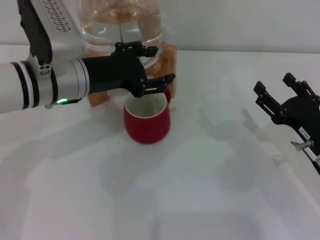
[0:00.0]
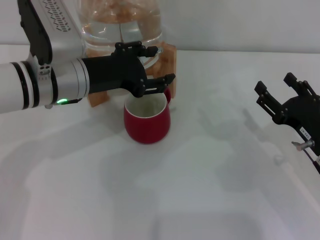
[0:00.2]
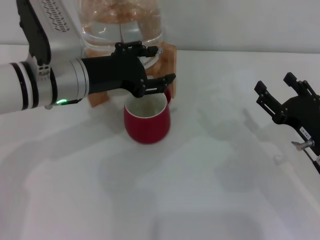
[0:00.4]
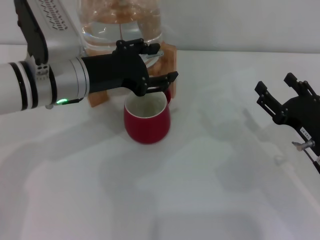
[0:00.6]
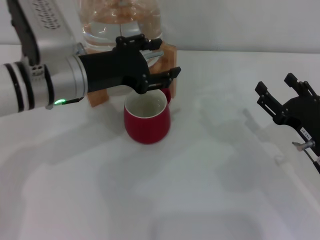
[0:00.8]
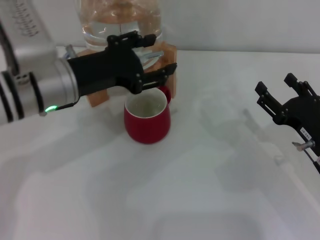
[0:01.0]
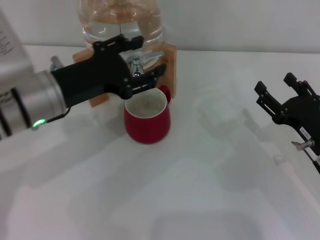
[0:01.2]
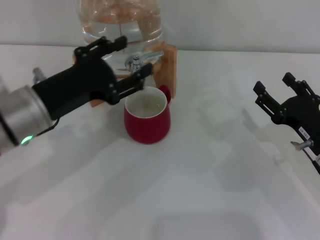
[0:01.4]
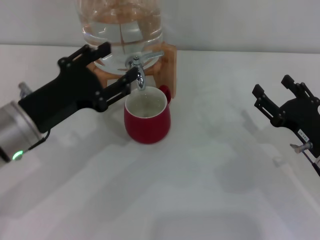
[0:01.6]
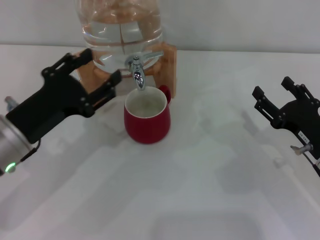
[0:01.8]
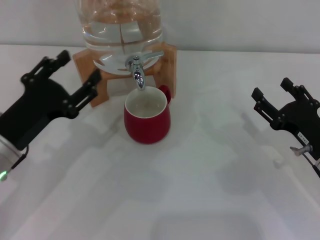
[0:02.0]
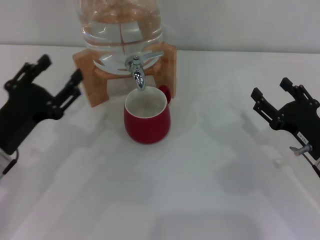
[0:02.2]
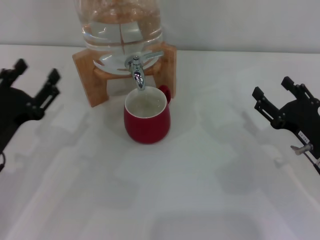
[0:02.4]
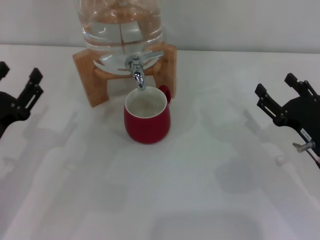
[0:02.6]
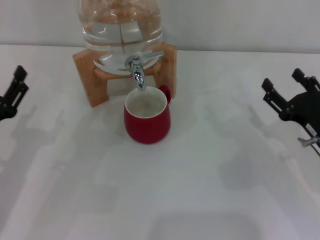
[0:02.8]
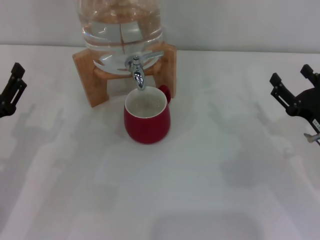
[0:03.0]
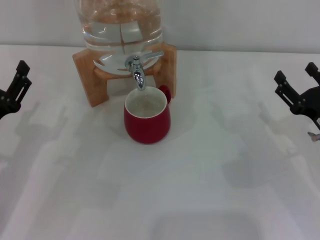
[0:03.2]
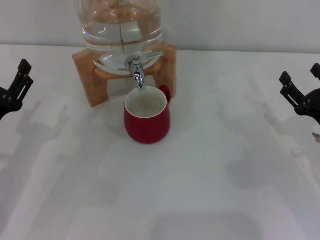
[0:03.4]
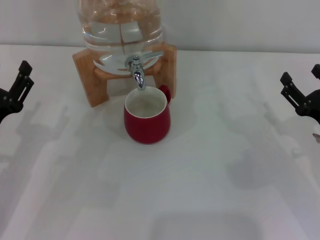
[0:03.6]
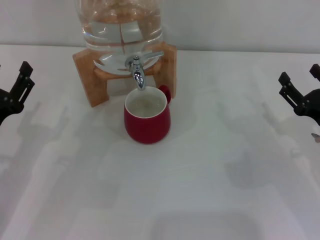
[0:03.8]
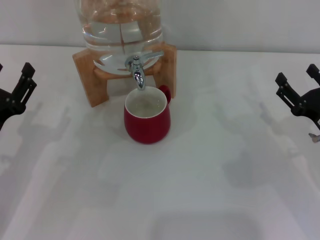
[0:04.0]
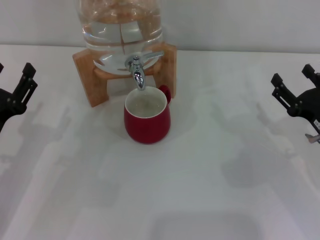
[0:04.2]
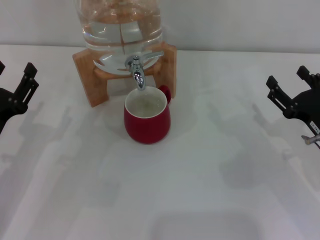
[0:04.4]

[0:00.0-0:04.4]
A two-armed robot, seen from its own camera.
Task of the whole recording: the right gripper pick up the red cup and place it horizontally under the faucet, the left gripper turn on the faucet to fill the cup, and then turn off the faucet.
0:00.0 to 0:01.4: The left gripper goes about 5 cm backward.
0:01.4 to 0:03.0: The left gripper shifts some 15 cm to the left, downward and backward.
0:03.0 to 0:04.4: Both grippers stay about where they are.

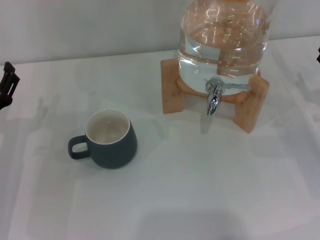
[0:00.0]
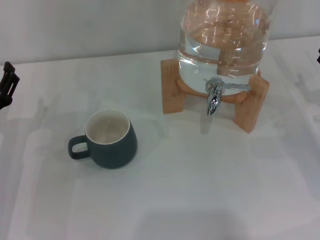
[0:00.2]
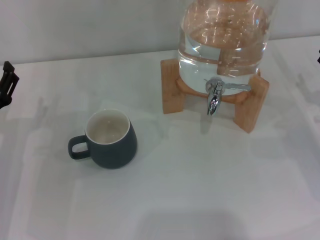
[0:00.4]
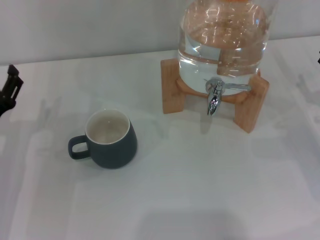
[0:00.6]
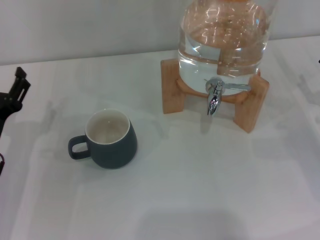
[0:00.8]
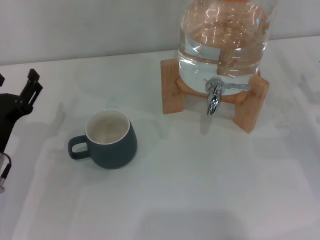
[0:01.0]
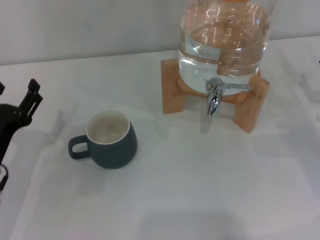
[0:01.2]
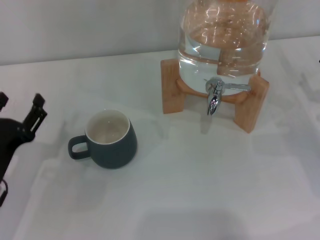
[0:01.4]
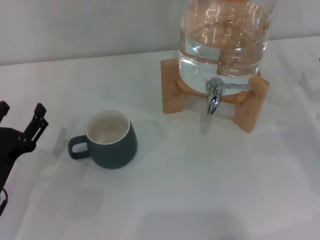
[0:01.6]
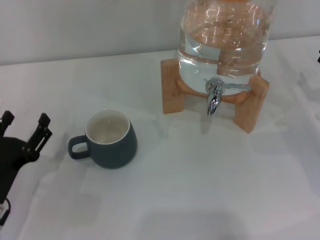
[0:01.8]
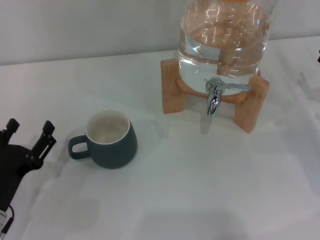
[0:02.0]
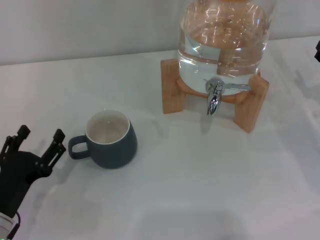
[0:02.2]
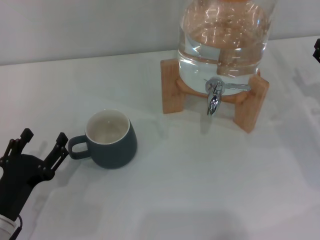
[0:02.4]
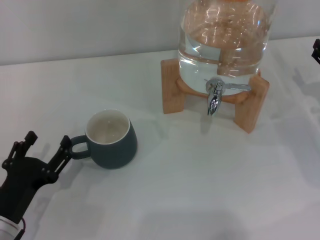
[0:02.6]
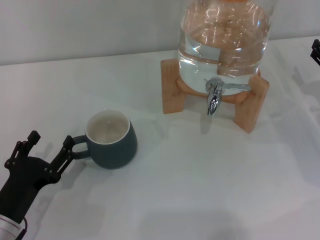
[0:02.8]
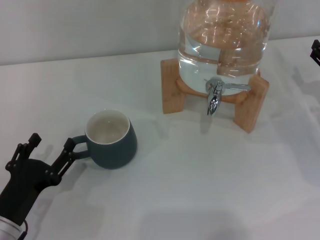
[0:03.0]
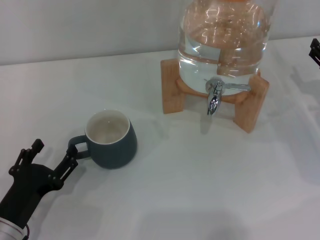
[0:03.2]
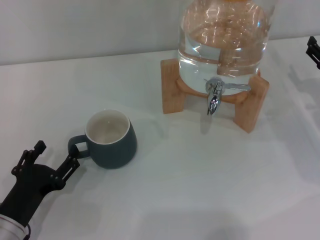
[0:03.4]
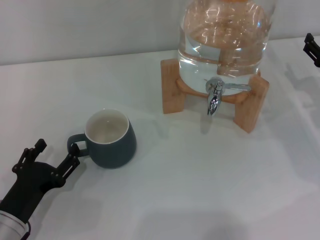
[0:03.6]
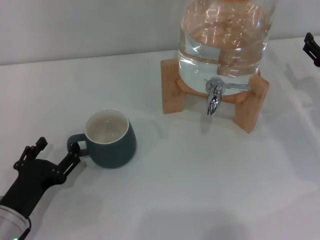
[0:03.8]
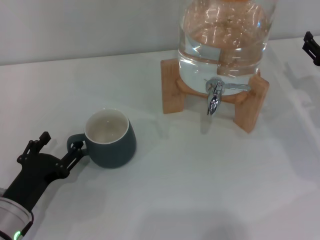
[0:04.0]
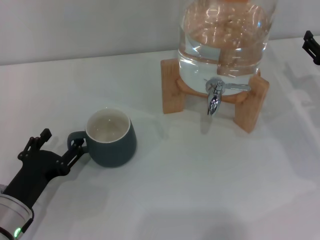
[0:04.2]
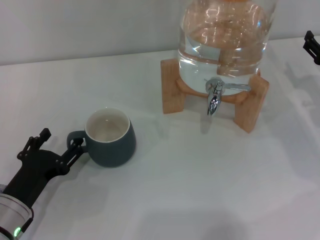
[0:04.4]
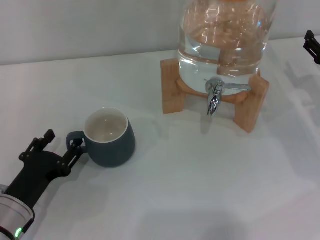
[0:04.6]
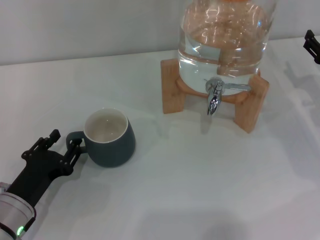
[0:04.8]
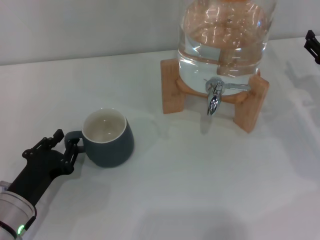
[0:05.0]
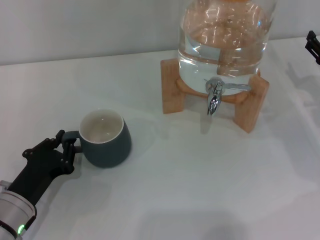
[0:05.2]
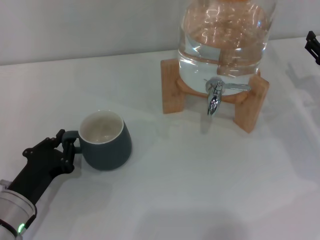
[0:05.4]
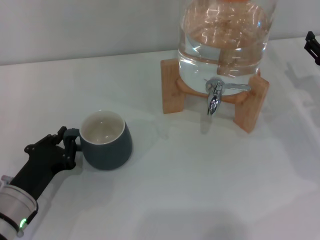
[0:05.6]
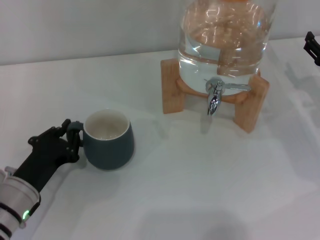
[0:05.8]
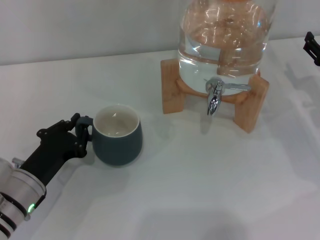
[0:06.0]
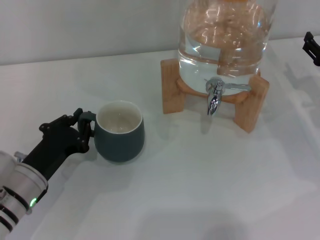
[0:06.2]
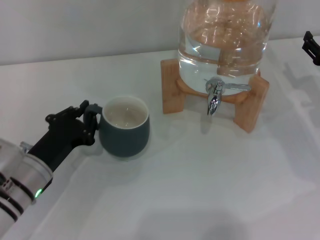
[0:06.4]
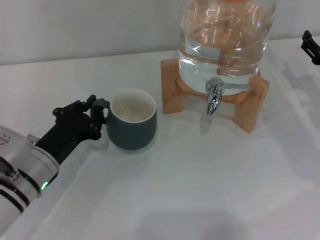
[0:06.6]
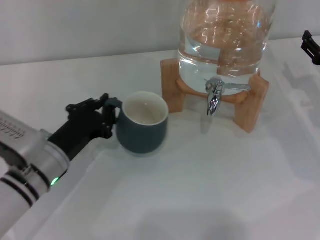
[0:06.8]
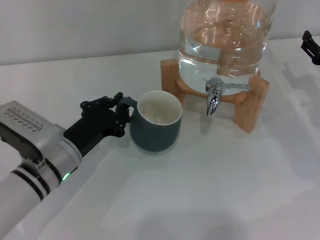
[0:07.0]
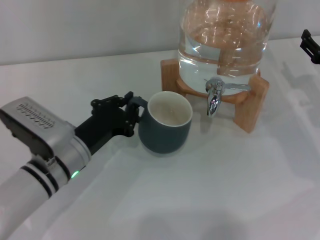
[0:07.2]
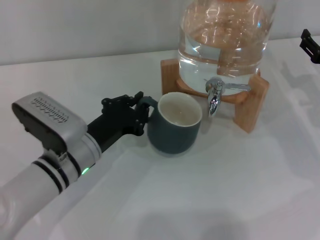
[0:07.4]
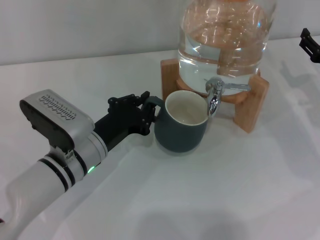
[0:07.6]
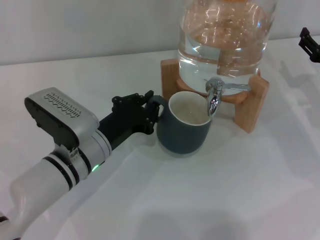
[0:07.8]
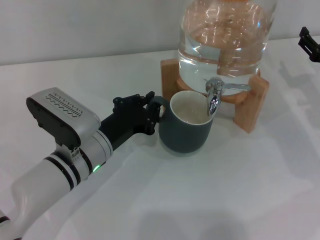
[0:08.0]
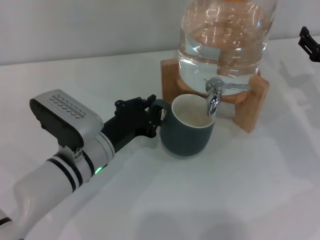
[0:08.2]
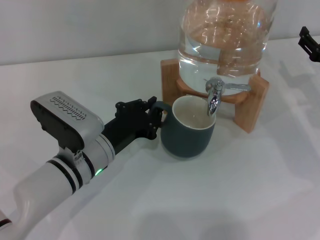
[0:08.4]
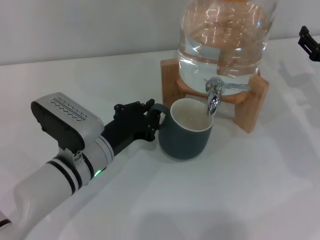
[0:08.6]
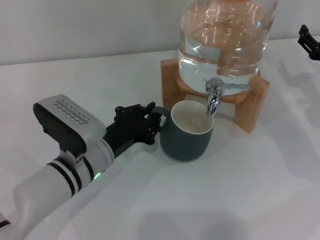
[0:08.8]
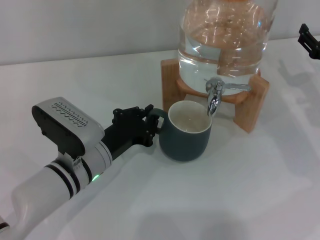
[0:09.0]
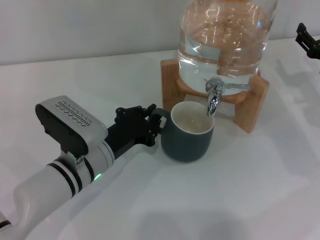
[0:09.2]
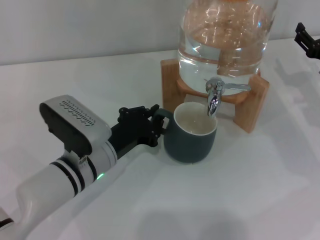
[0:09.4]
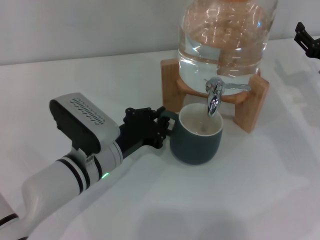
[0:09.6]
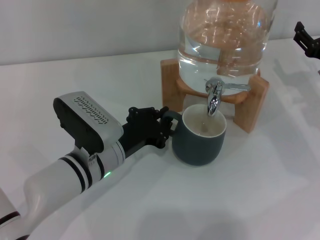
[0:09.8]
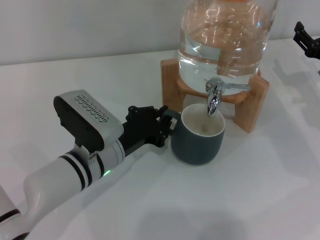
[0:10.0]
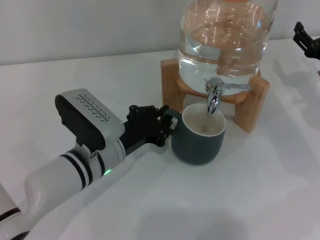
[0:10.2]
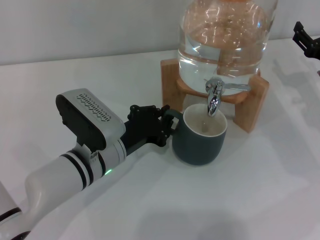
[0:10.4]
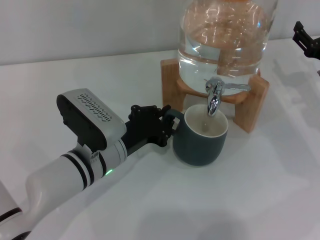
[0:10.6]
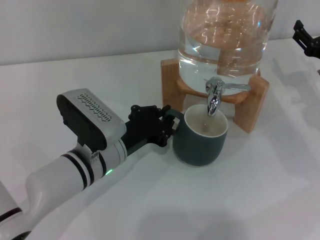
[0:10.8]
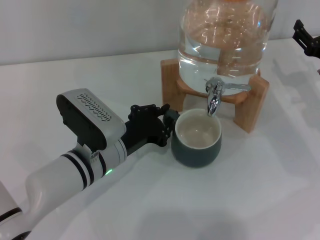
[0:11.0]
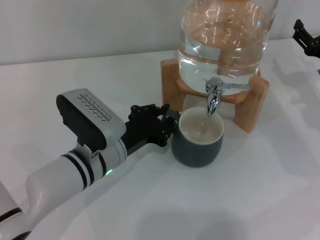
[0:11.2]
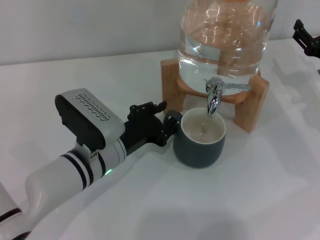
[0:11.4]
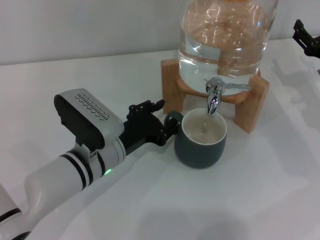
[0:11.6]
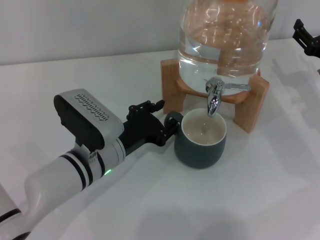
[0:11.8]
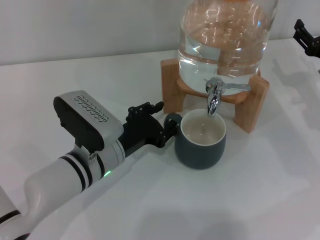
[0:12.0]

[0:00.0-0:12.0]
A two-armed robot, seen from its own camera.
Task of the whole recording: the left gripper pick up the black cup and place it horizontally under the faucet, the right gripper turn on the faucet to fill the cup, and then turn off the faucet.
0:00.0 to 0:01.6: The left gripper travels backward by roughly 5 cm.
0:01.6 to 0:04.4: The grippers stay close to where they were, moving slightly.
0:04.4 to 0:06.0: The left gripper closes.
0:06.0 to 0:07.6: The left gripper goes approximately 10 cm to the right.
0:07.6 to 0:09.0: Both grippers stay put.
0:09.0 to 0:10.4: There are only small adjustments of the grippers.
0:10.4 to 0:12.0: The left gripper opens up.

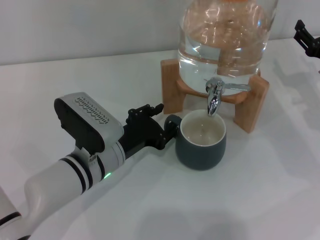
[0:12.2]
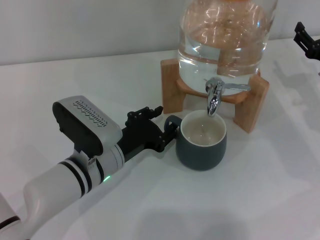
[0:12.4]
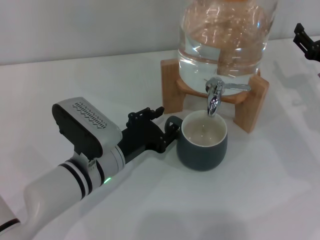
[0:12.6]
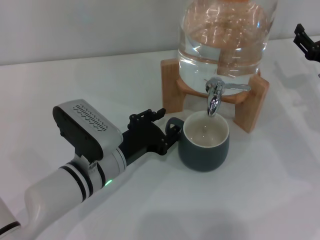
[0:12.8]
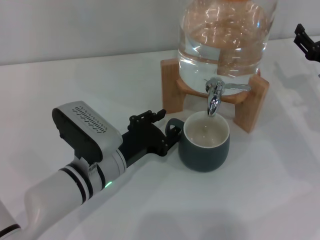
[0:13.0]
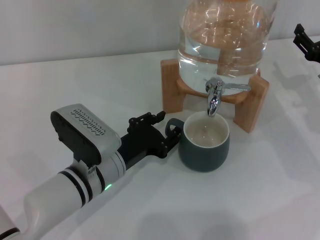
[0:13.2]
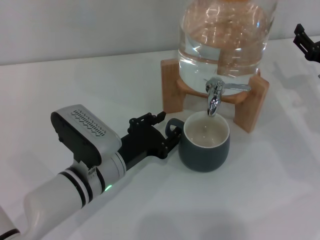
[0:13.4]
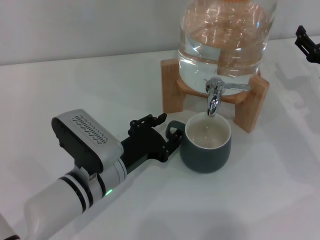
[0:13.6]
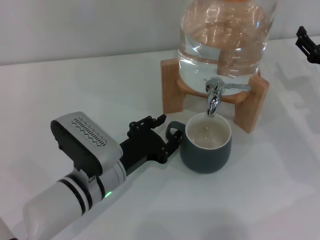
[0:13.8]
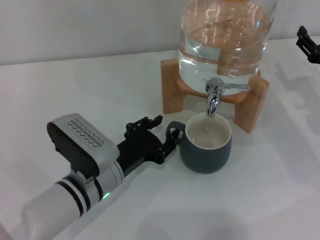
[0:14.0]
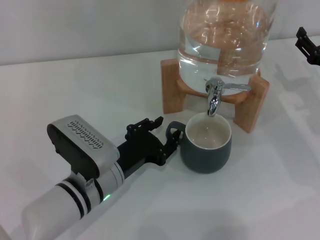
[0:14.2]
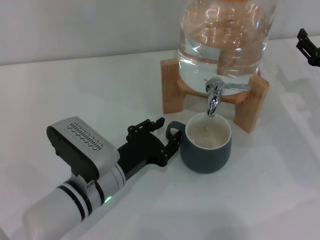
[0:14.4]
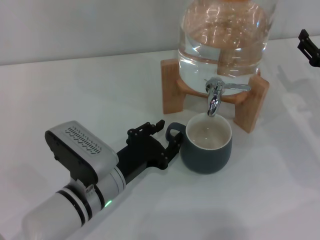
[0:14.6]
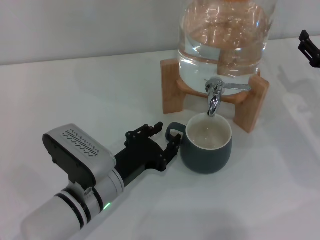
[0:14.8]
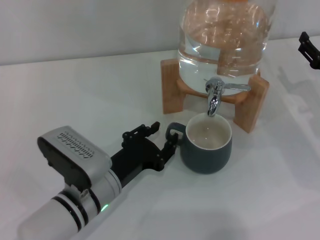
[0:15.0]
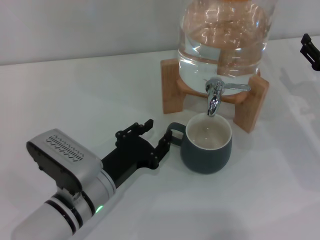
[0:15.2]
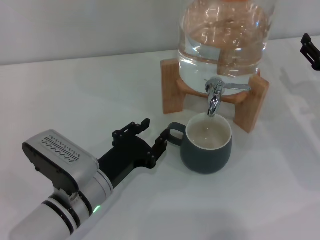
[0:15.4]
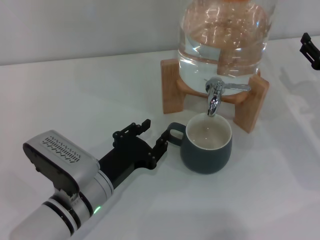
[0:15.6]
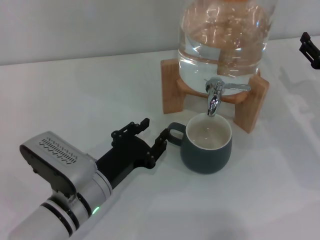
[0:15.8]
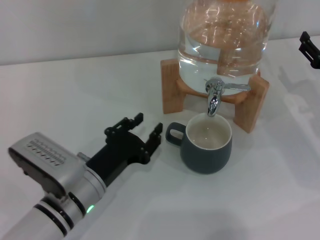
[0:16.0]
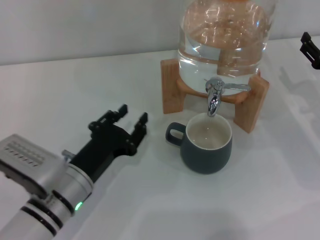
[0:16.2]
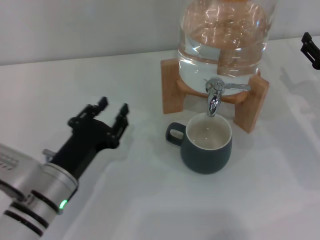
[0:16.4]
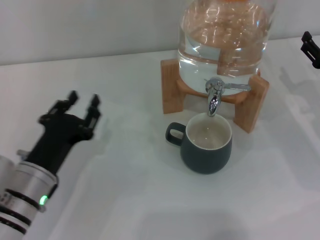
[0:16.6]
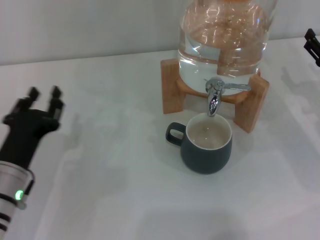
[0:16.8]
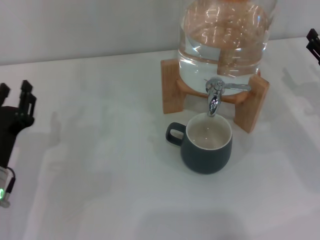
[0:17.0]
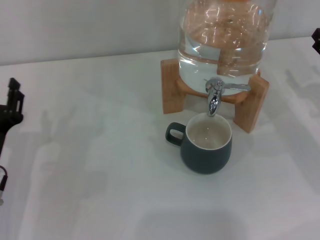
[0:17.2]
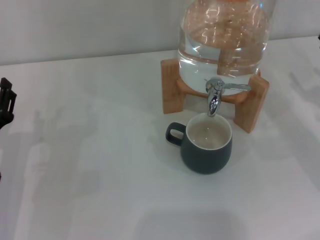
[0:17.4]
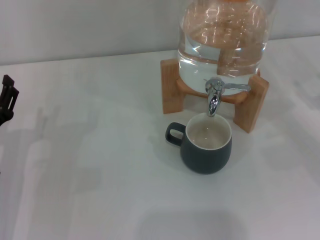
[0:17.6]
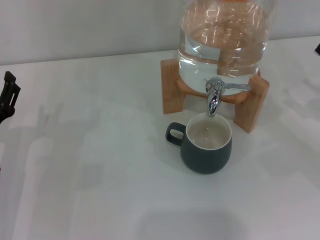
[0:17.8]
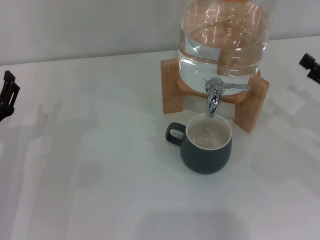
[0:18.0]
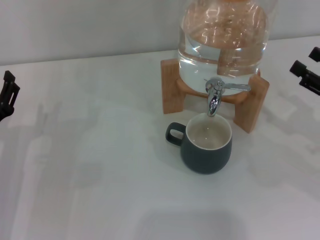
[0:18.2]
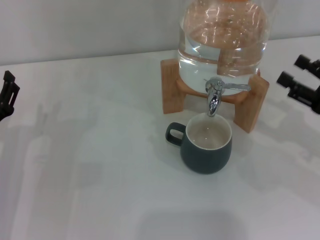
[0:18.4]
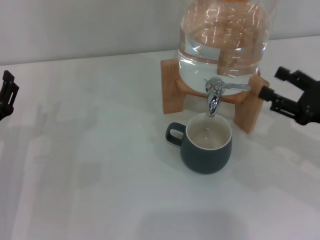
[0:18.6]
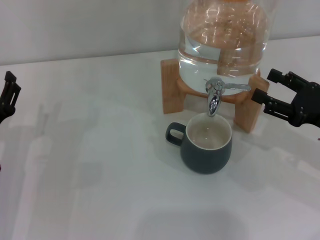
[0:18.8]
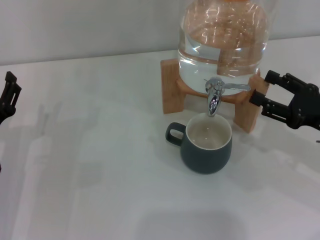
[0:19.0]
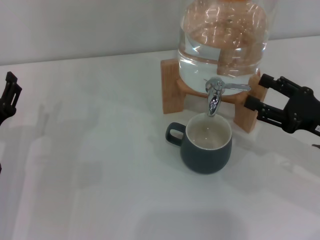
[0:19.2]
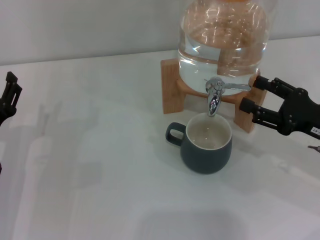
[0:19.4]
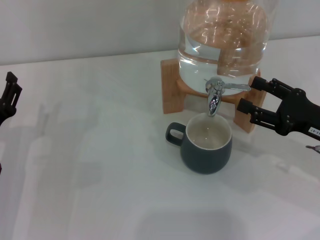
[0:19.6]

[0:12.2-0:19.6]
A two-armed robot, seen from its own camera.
Task of the whole recording: the left gripper pick up the black cup and place it horizontally under the faucet, the right gripper turn on the faucet to fill the cup, and then turn off the faucet.
Step, 0:12.2 to 0:15.0: Move the cup beneath the water dispenser nozzle with the left gripper.
0:12.2 to 0:15.2: The grippers stay close to where they were, moving slightly.
0:15.2 to 0:16.6: The left gripper travels to the left by about 5 cm.
0:16.6 to 0:18.2: The right gripper shifts about 5 cm backward; the left gripper goes some 5 cm to the left.
0:18.2 to 0:19.6: The right gripper travels to the left by roughly 5 cm.
